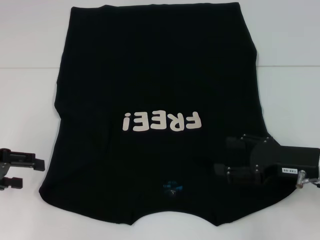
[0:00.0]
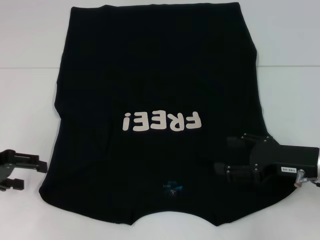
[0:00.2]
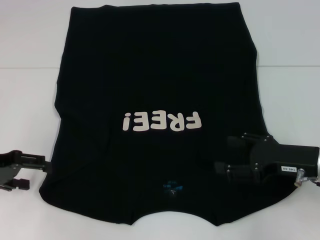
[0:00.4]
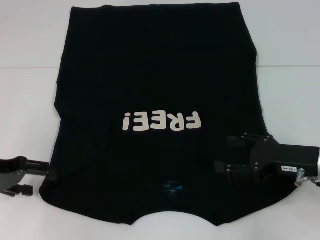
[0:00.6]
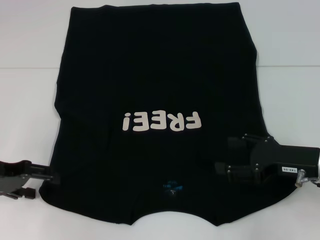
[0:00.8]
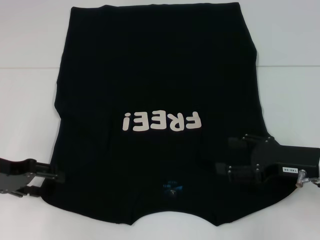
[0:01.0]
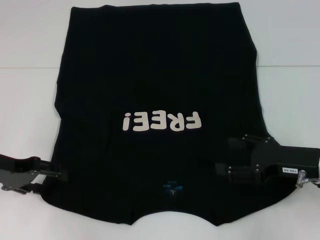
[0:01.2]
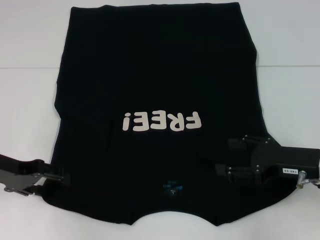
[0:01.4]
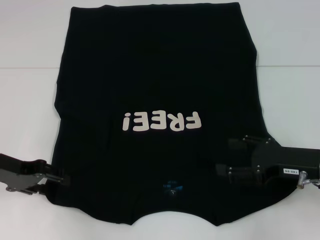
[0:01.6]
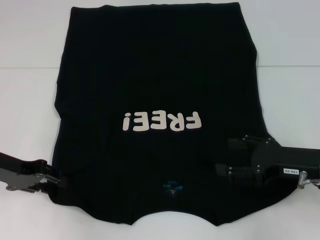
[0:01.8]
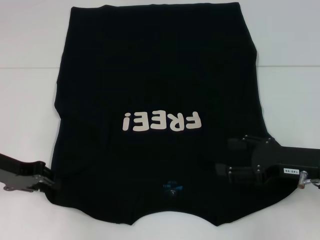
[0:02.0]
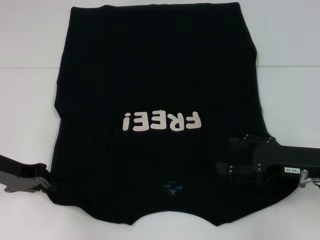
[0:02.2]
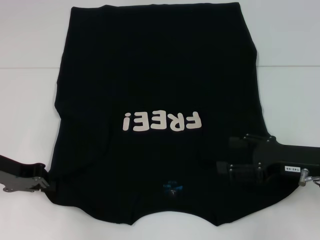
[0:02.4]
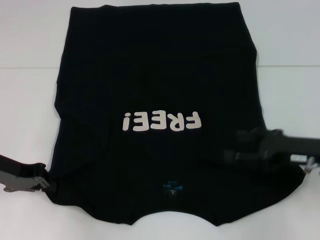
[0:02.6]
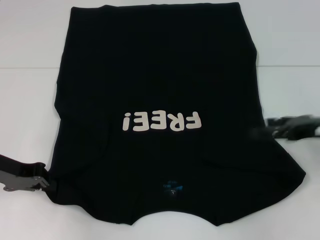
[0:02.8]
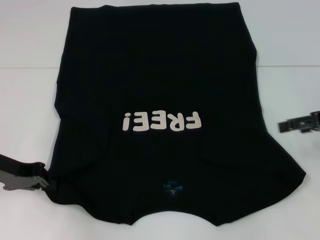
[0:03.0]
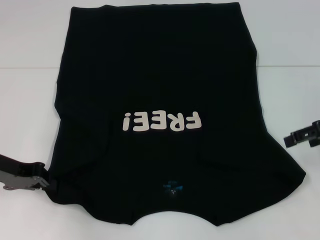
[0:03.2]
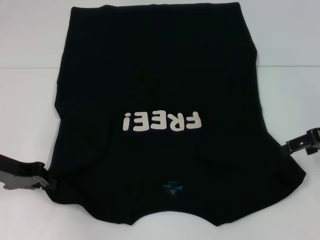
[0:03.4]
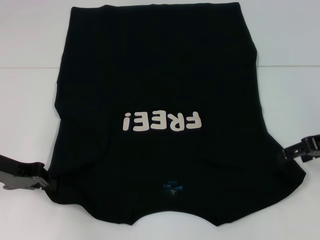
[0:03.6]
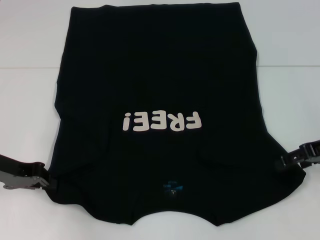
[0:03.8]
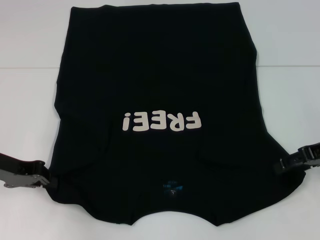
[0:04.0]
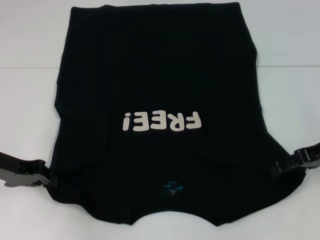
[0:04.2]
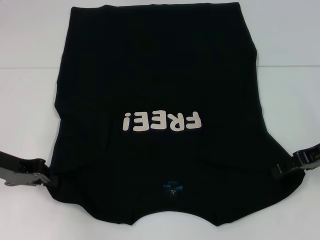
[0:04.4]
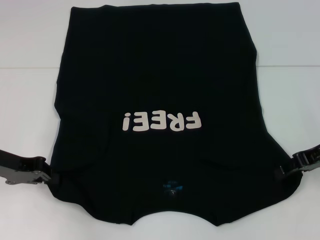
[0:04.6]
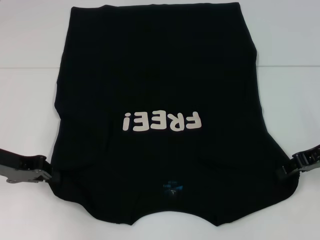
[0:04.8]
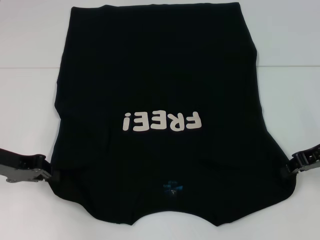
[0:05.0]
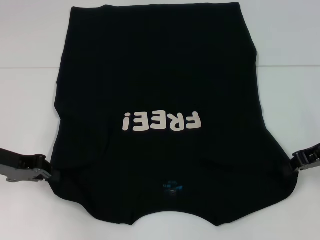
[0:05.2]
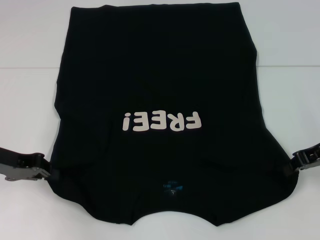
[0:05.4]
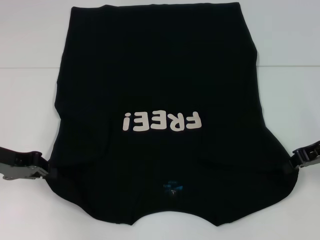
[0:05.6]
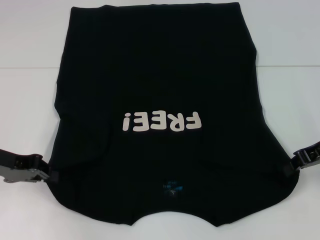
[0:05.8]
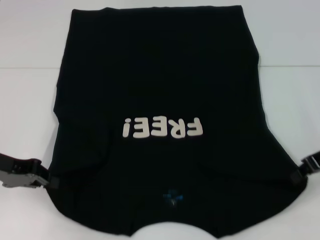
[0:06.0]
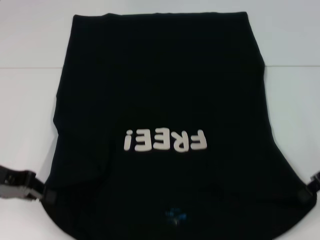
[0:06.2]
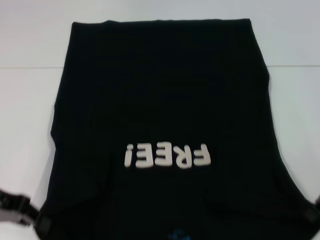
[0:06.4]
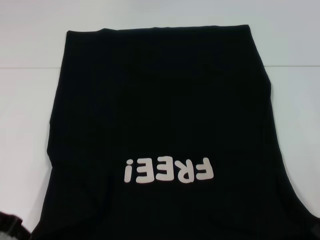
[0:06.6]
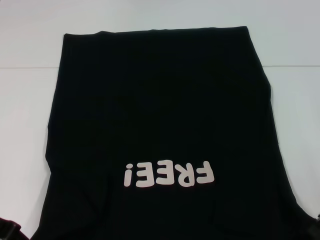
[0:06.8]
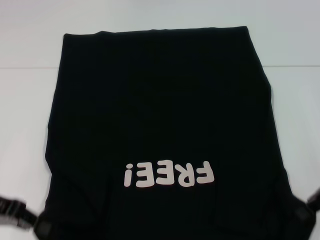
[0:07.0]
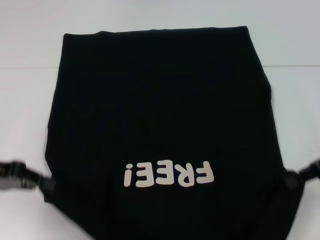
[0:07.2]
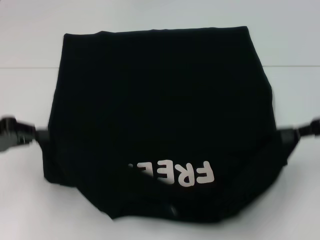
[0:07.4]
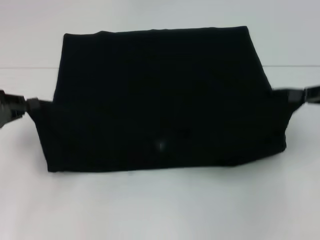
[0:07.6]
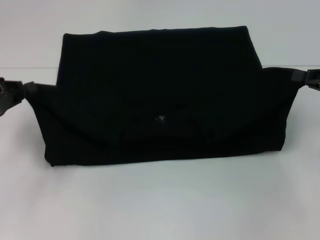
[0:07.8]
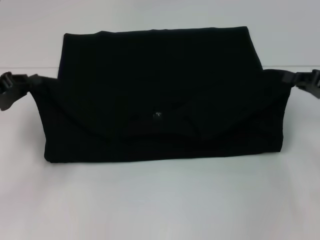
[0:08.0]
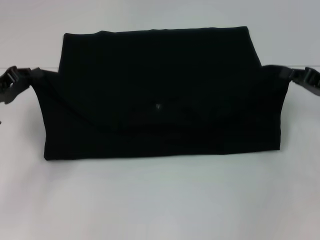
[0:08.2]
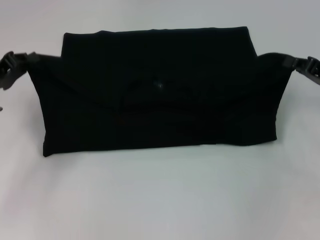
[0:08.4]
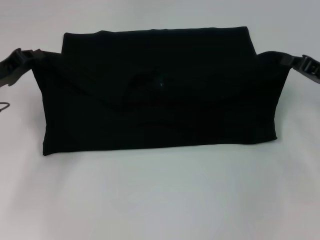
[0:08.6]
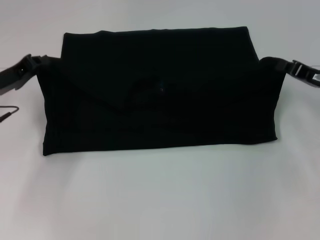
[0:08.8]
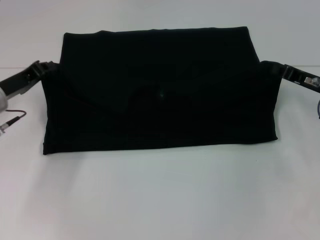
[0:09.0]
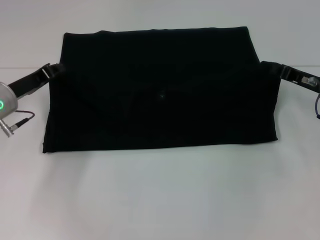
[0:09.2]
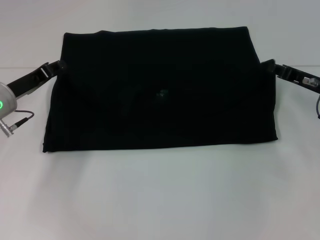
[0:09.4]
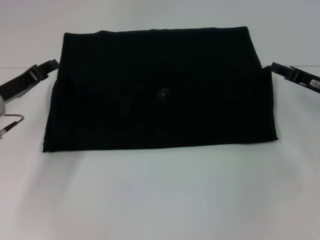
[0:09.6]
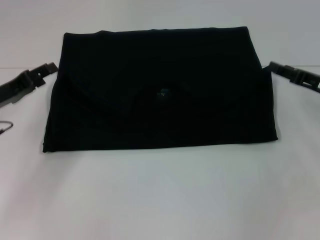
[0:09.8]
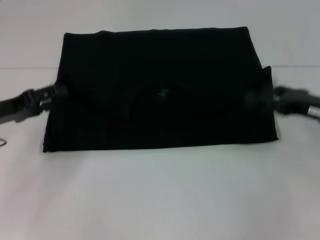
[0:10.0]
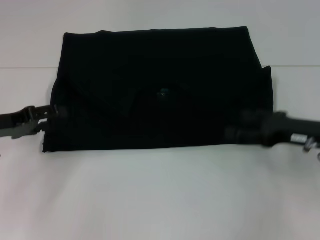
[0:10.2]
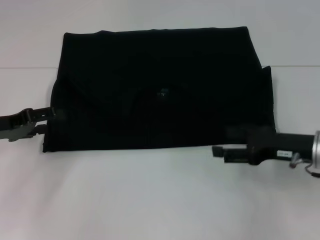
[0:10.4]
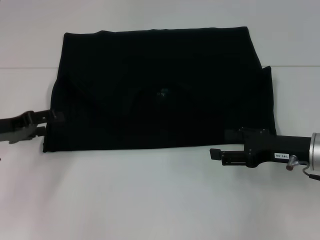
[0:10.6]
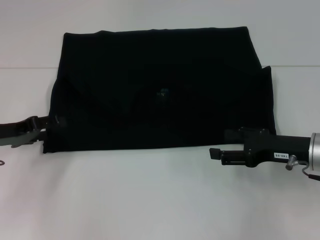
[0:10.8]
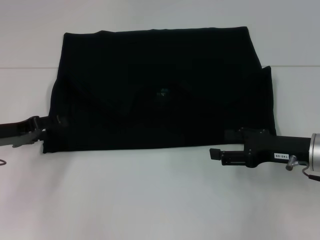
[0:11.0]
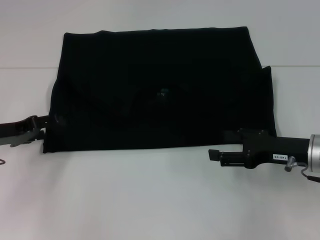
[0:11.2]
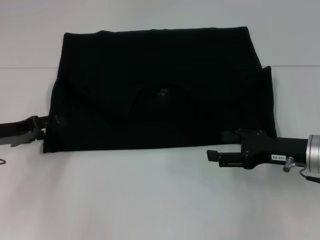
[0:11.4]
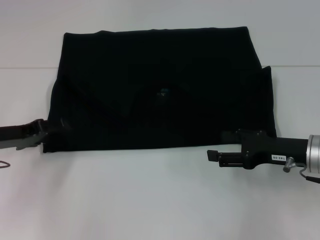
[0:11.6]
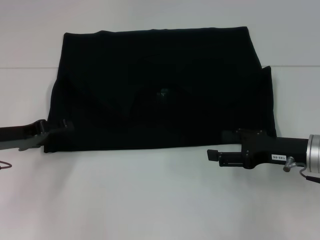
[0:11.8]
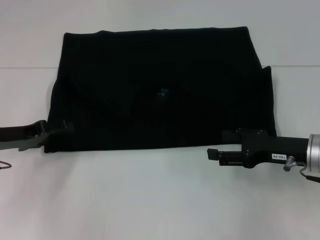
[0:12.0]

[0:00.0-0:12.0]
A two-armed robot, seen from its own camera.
Step, 0:00.0 to 0:06.8: Grab the bottom left corner with your left hand.
Step, 0:00.0 to 0:06.8: Grab the bottom right corner with your right hand.
Step, 0:07.0 to 0:09.8: Fold the clothes with your left hand.
Step, 0:07.0 to 0:09.8: Fold the clothes with your right hand.
0:00.0 to 0:01.6: The left gripper changes place by roughly 5 cm.
0:01.6 to 0:03.0: The right gripper goes about 10 cm upward, to the right and forward, while the left gripper closes.
0:03.0 to 0:04.4: The grippers make only small movements.
0:04.4 to 0:06.0: The right gripper closes.
0:06.0 to 0:07.6: The right gripper heads to the right, covering about 5 cm.
0:07.6 to 0:09.0: The right gripper moves downward, to the left and forward, roughly 10 cm. Meanwhile the left gripper is displaced forward and to the right by approximately 10 cm.
0:09.0 to 0:10.4: The left gripper moves approximately 5 cm, and opens its fingers, while the right gripper travels backward by about 5 cm, and opens up.
0:10.4 to 0:12.0: The grippers stay close to where they were, moving slightly.

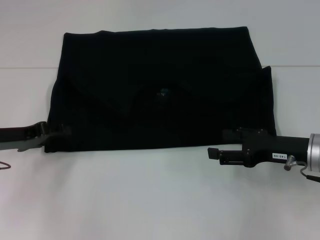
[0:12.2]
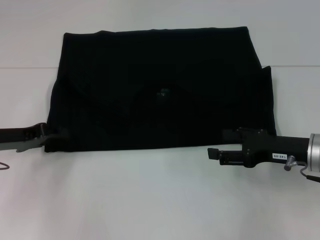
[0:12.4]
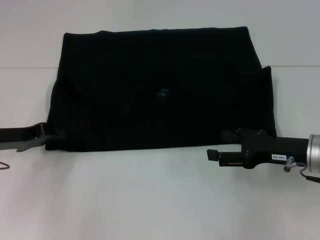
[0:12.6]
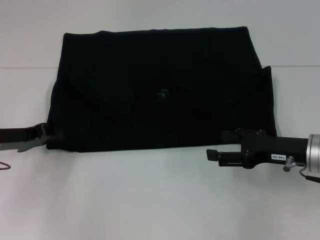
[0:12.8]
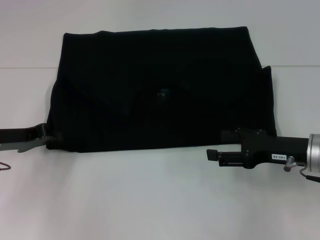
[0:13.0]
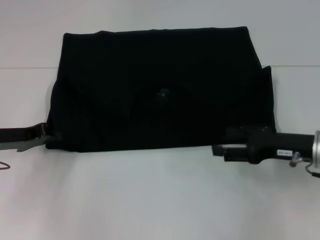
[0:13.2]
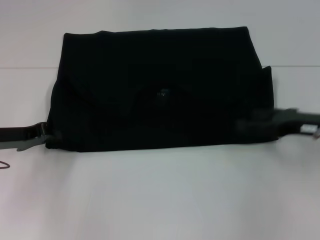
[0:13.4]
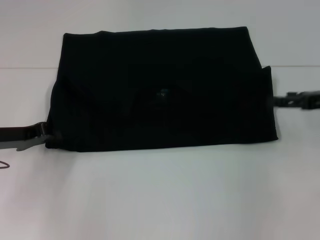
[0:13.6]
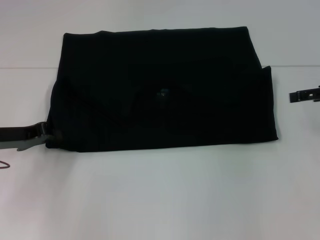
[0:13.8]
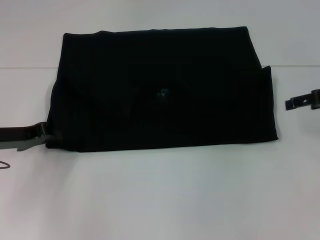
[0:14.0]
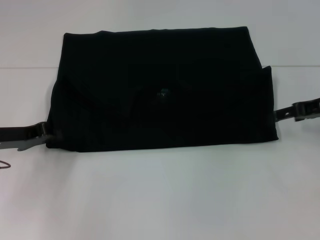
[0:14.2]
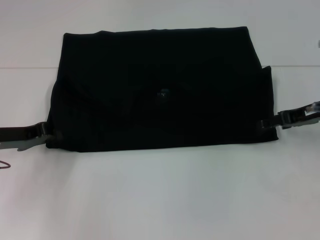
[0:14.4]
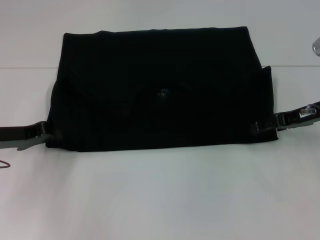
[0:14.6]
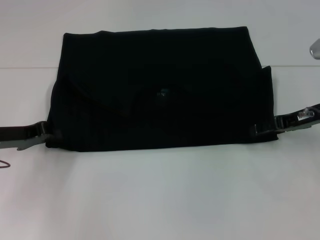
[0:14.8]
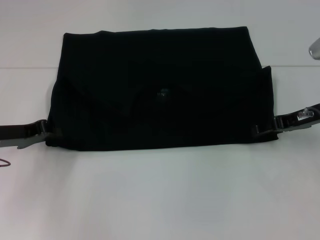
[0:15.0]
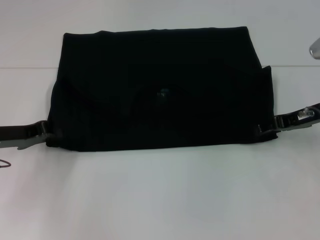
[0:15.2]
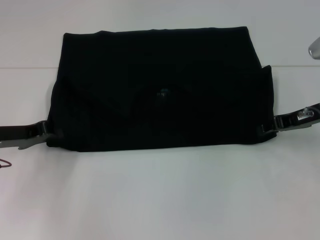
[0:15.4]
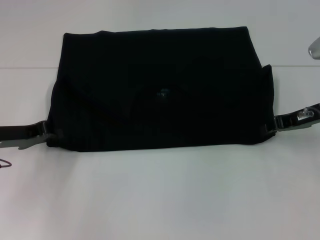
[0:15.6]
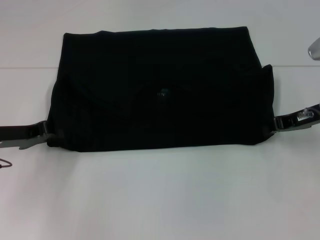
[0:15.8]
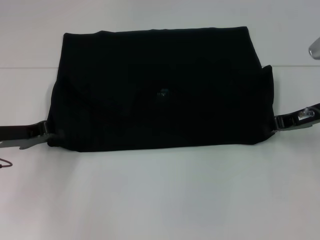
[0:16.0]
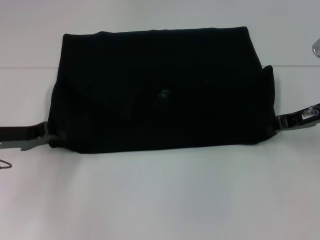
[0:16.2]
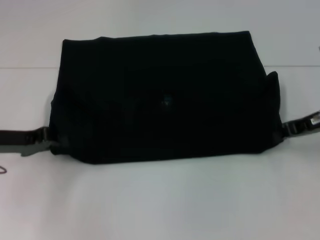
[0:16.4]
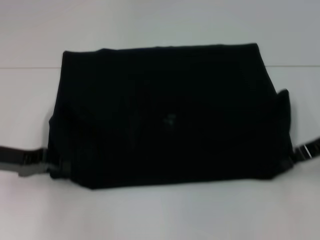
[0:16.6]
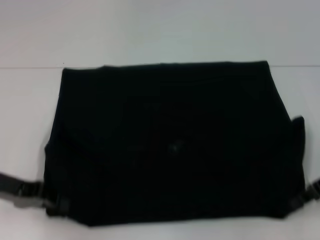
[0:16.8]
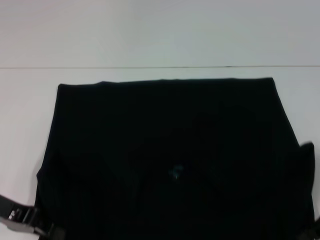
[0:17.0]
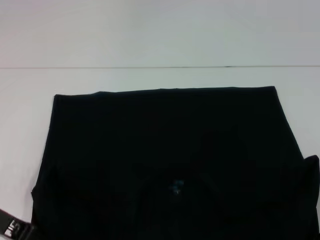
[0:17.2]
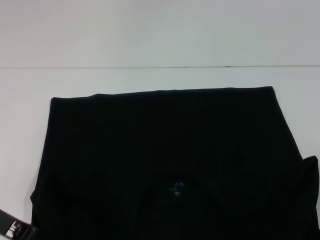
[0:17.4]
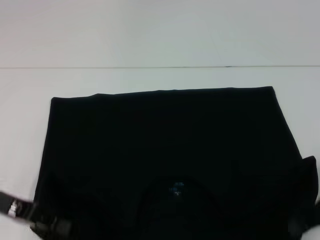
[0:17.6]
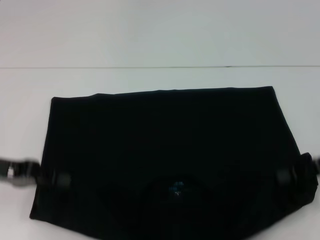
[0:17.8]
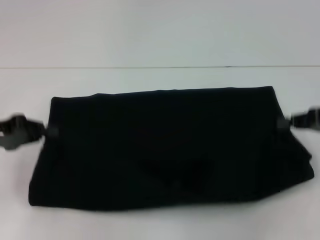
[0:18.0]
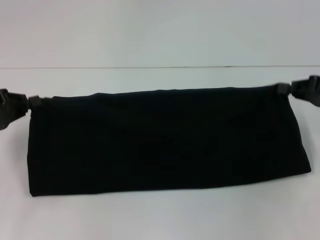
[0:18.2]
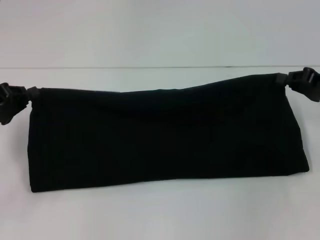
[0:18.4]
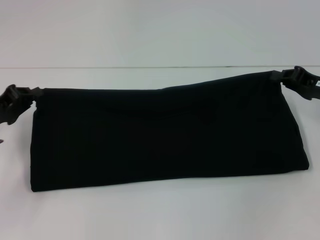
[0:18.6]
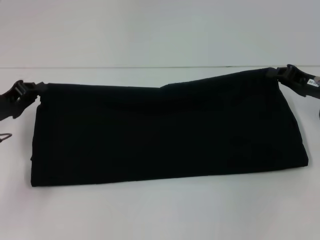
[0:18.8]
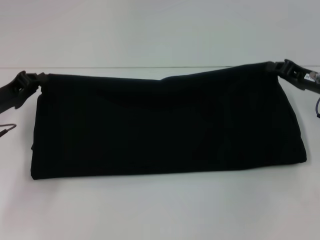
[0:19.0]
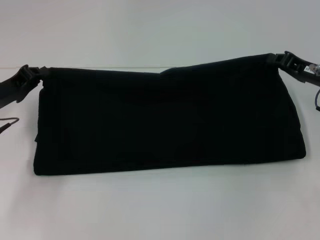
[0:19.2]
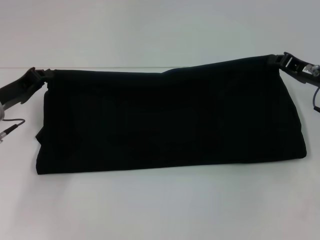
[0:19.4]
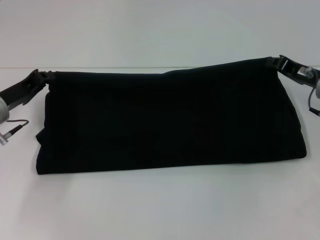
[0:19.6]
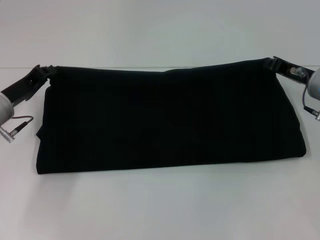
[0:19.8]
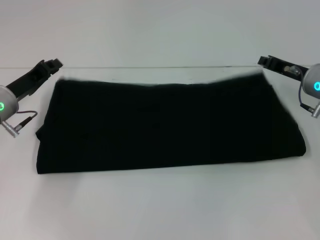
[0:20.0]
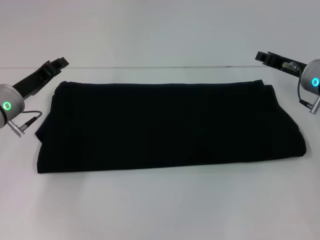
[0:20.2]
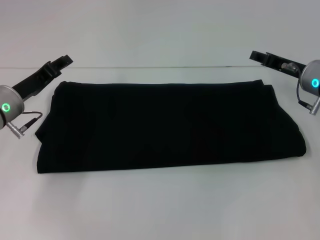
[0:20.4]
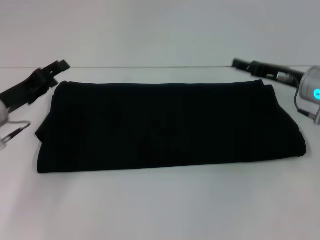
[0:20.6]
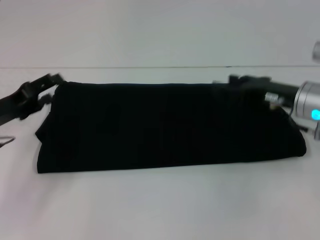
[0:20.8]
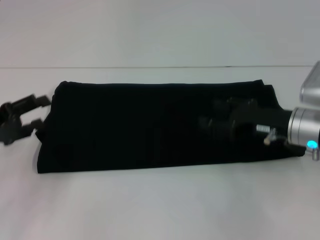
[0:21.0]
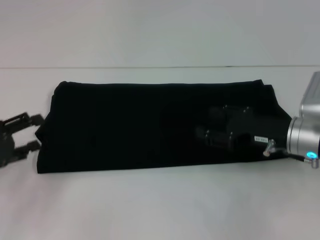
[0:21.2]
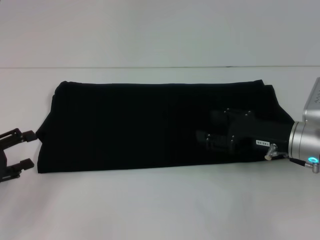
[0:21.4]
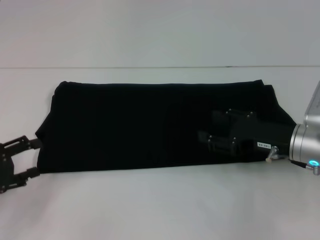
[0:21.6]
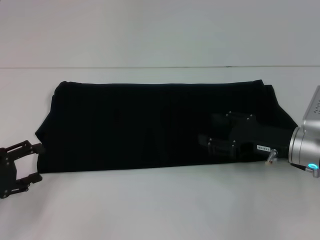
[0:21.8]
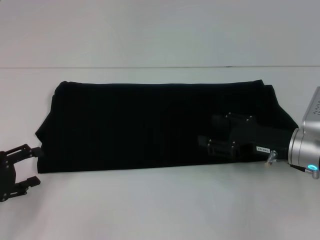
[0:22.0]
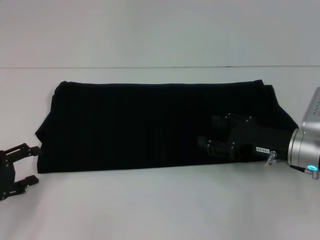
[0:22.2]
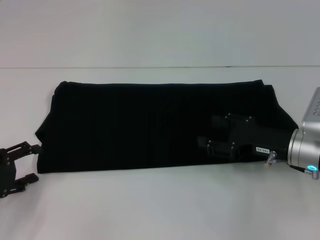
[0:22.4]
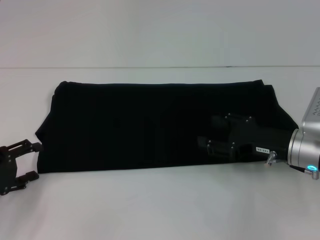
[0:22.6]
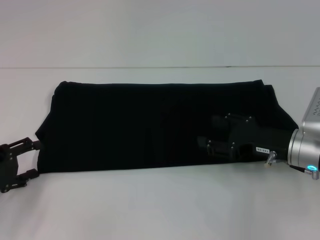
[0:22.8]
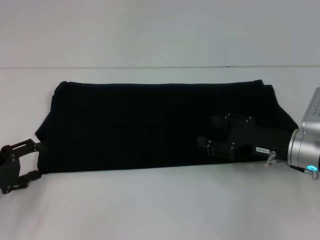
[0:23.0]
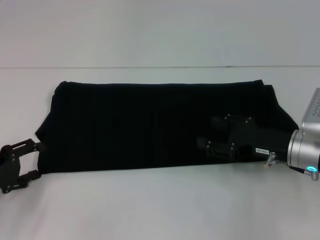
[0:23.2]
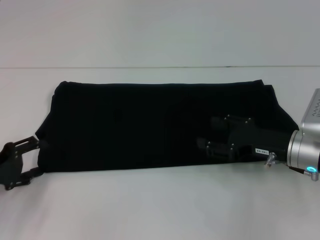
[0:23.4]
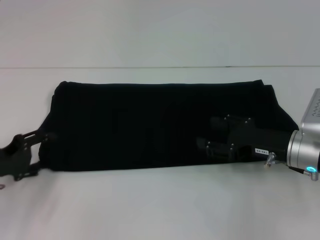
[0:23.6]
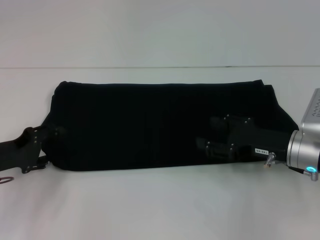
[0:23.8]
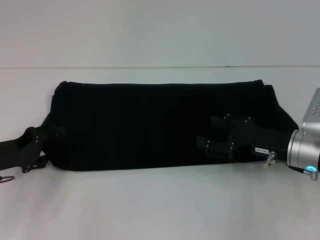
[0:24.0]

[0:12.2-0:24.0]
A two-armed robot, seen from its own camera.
Step, 0:12.2 to 0:17.2: Pull the clothes with your left hand.
Step, 0:12.2 to 0:17.2: Pull the clothes with your right hand.
Step, 0:17.4 to 0:20.6: Fold the clothes with your right hand.
0:12.2 to 0:13.6: The left gripper closes its fingers, while the right gripper goes about 10 cm to the right and upward.
0:13.6 to 0:15.2: The right gripper shifts roughly 5 cm to the left.
0:15.2 to 0:16.6: The right gripper closes its fingers.
0:16.6 to 0:18.2: The right gripper reaches about 10 cm backward, then returns.
0:18.2 to 0:19.6: The left gripper shifts approximately 10 cm to the right and forward, while the right gripper is displaced to the left by roughly 5 cm.
0:19.6 to 0:21.0: Both grippers move backward, about 5 cm. The left gripper opens; the right gripper opens up.
0:21.0 to 0:22.6: The left gripper moves roughly 5 cm.
0:22.6 to 0:24.0: The left gripper changes place by about 5 cm.
